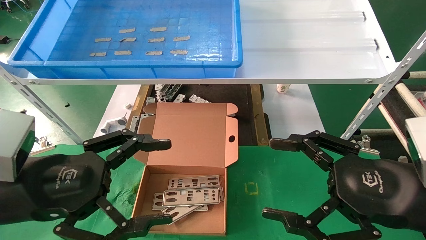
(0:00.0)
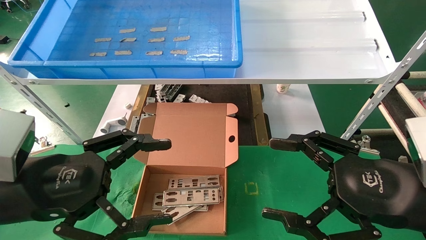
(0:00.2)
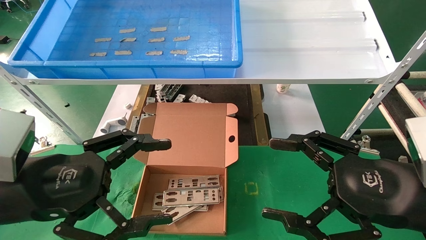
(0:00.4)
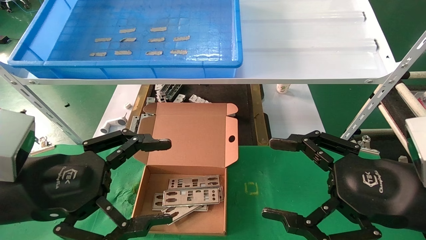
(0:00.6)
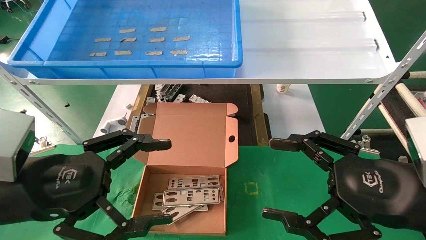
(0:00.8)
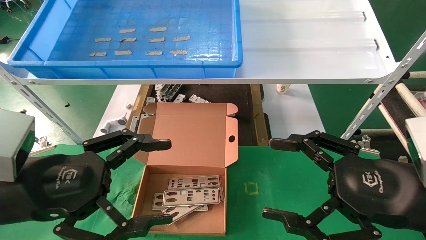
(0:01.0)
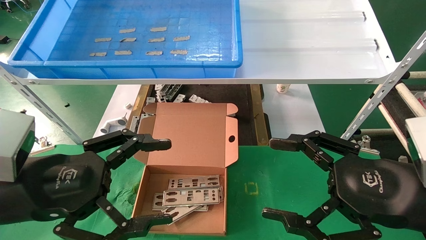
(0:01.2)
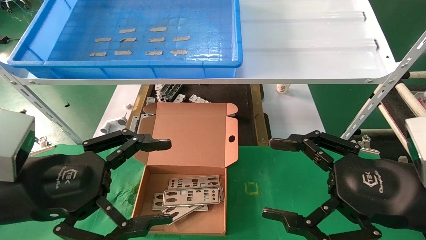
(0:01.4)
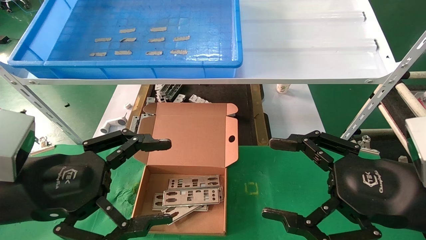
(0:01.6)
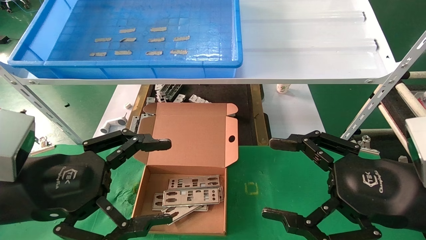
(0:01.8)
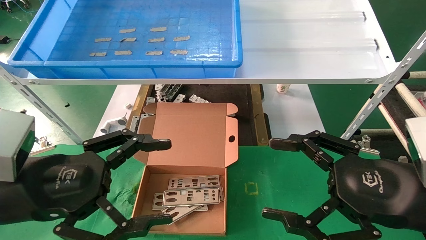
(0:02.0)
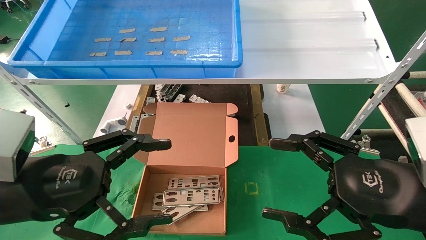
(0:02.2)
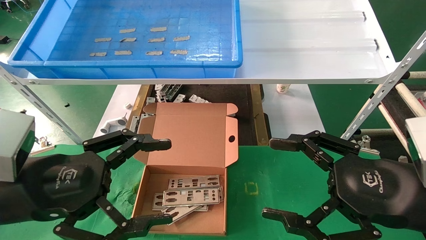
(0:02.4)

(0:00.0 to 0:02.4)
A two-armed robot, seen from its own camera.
Task of the whole recording: pick up the parts on the tray and put them in the cardboard box.
0:00.0 - 0:02.4: Neither gripper changes place.
